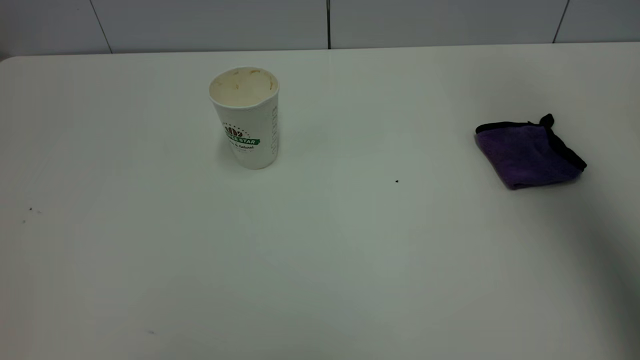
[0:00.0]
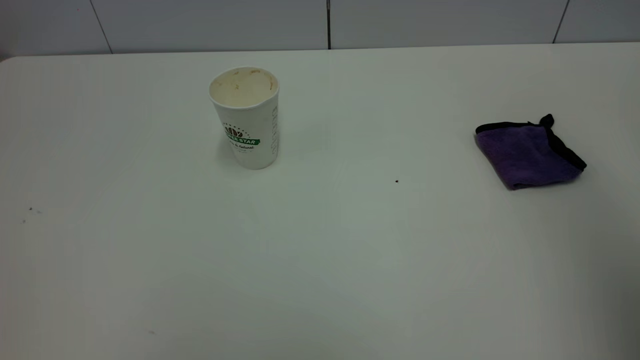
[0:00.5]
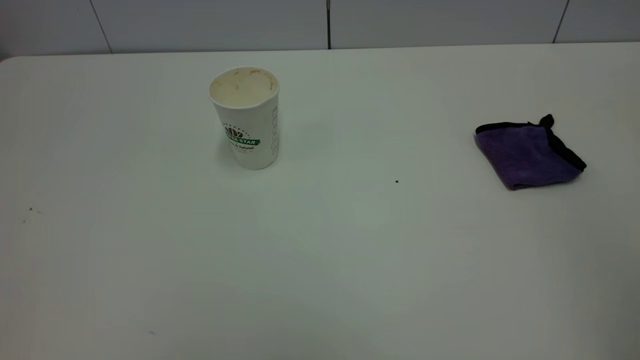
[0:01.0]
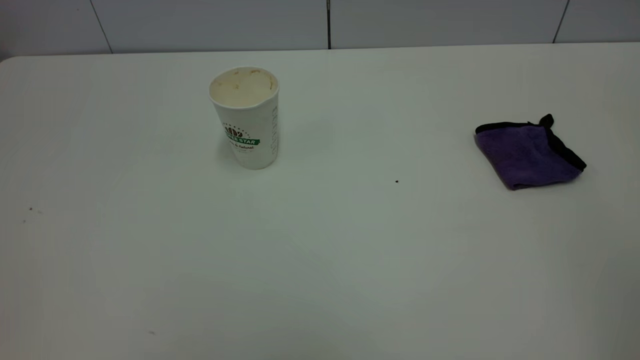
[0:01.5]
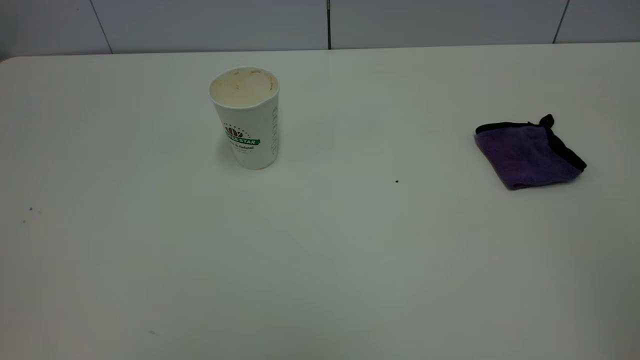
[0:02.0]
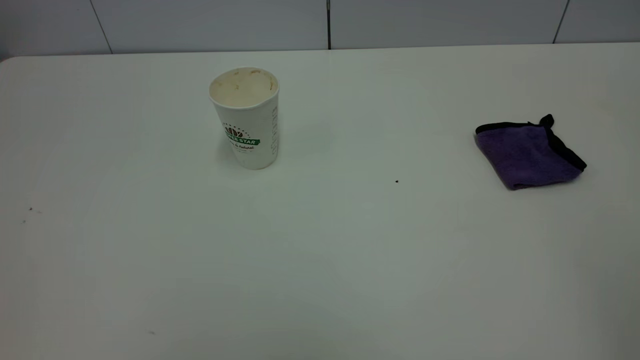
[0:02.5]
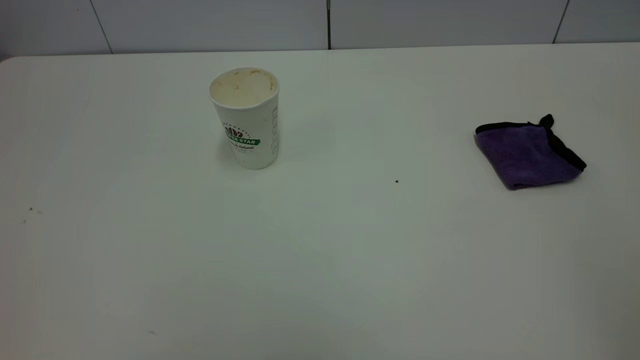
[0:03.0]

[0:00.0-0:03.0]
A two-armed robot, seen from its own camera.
Task of the whole recording: the left gripper pick up the fallen cup and place it upright, the right gripper grasp the purple rag and wipe the tea stain on the table, the right gripper put the purple rag back in its original position.
0:00.0 to 0:01.5: The right gripper travels backward by some 30 cm.
